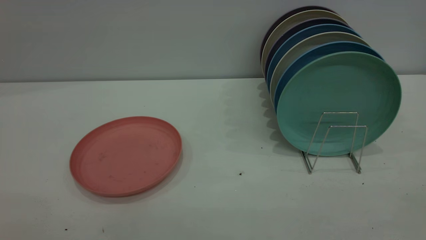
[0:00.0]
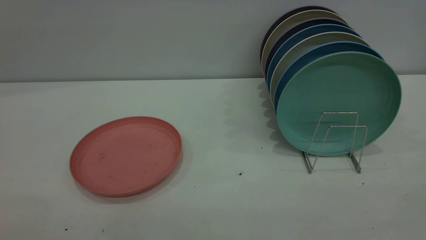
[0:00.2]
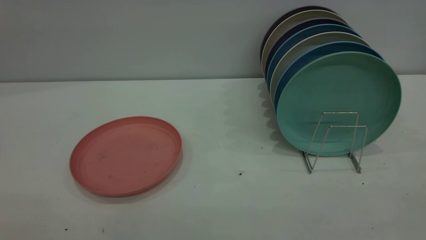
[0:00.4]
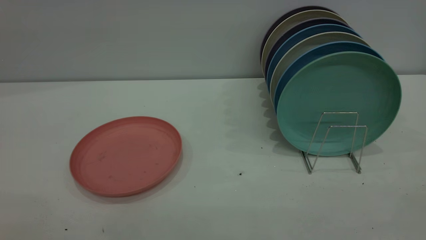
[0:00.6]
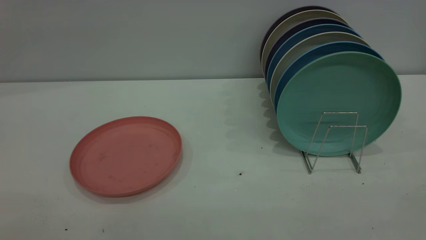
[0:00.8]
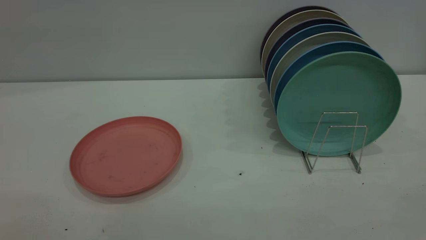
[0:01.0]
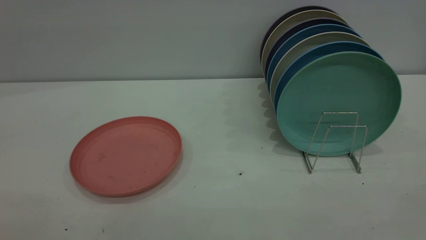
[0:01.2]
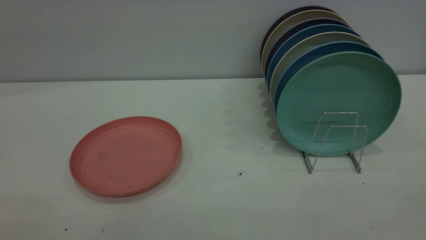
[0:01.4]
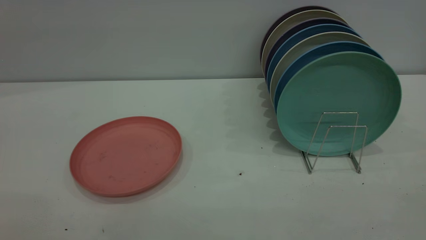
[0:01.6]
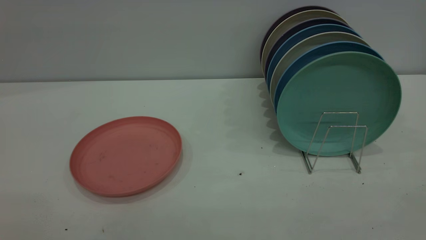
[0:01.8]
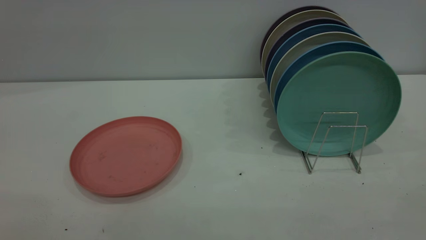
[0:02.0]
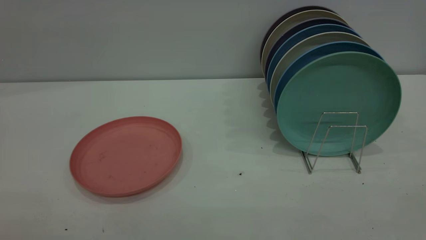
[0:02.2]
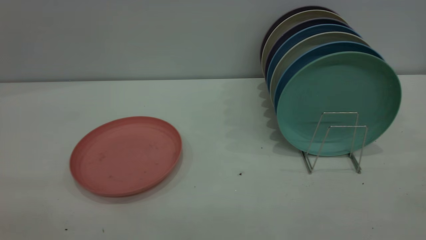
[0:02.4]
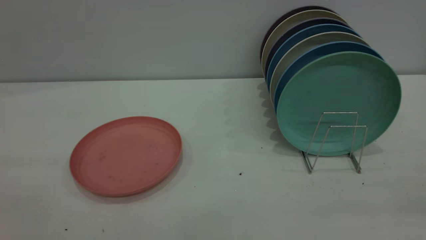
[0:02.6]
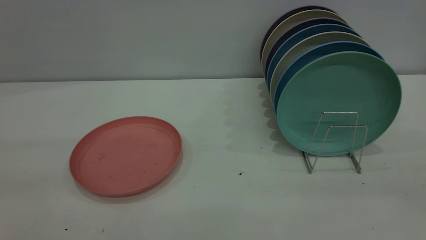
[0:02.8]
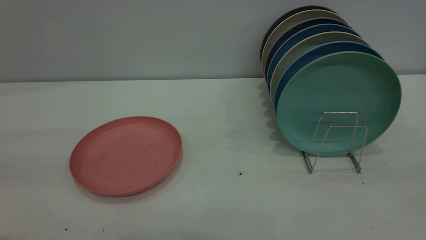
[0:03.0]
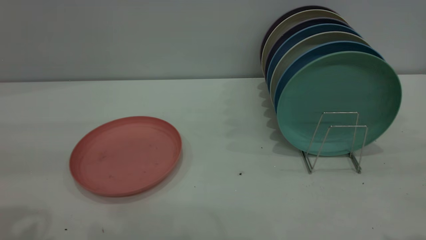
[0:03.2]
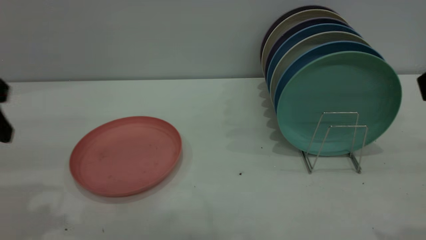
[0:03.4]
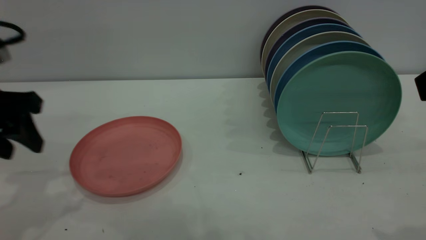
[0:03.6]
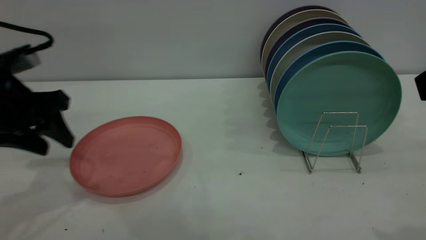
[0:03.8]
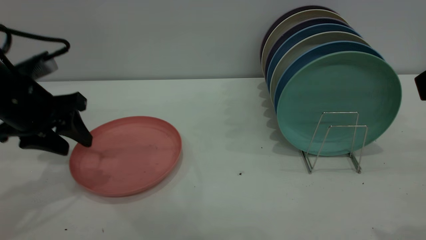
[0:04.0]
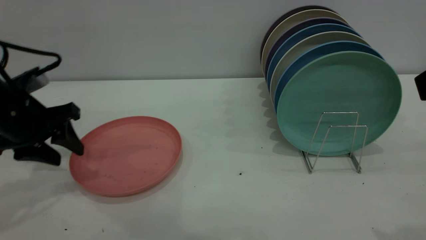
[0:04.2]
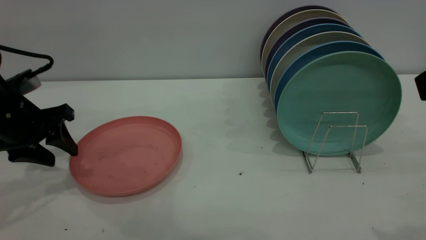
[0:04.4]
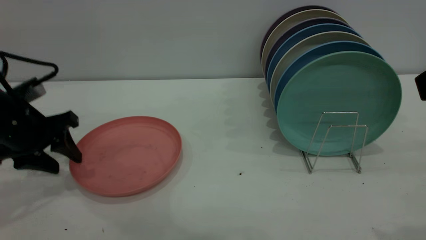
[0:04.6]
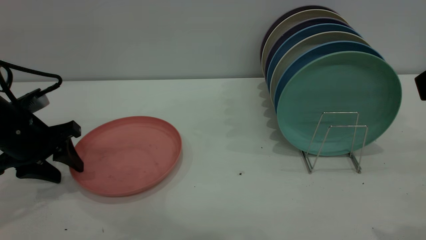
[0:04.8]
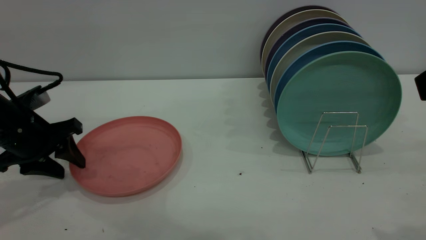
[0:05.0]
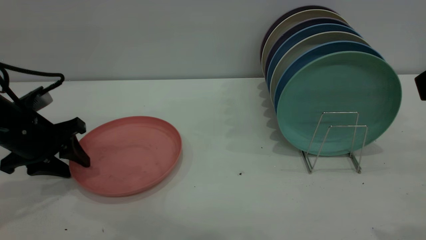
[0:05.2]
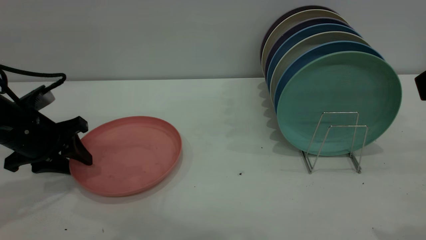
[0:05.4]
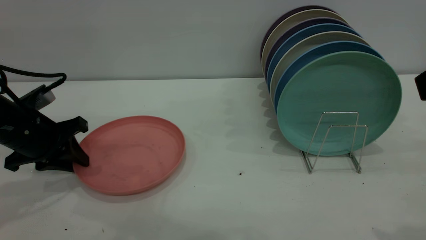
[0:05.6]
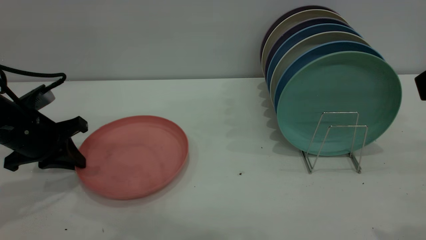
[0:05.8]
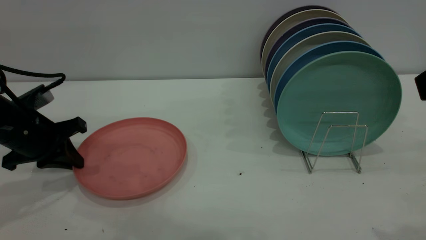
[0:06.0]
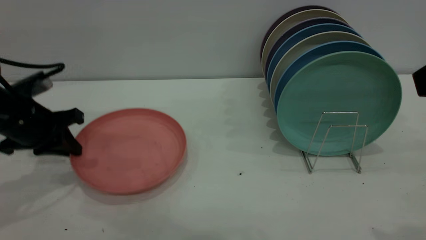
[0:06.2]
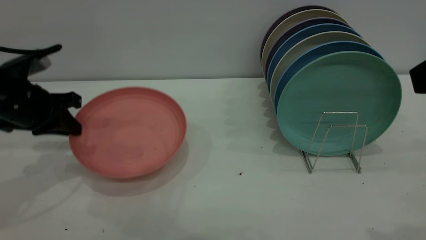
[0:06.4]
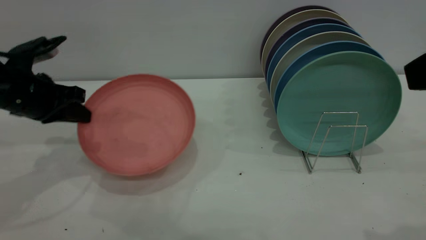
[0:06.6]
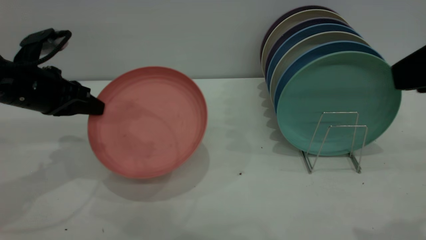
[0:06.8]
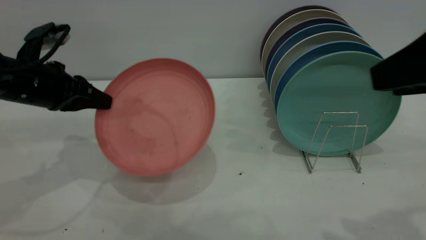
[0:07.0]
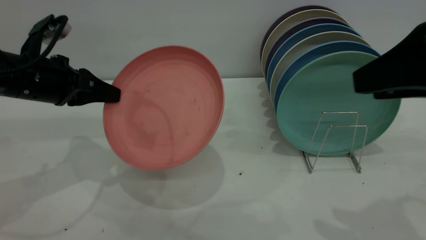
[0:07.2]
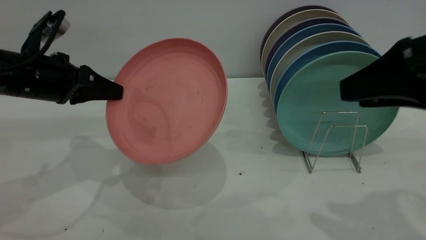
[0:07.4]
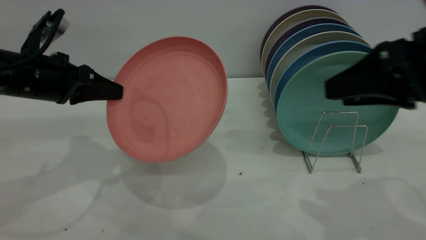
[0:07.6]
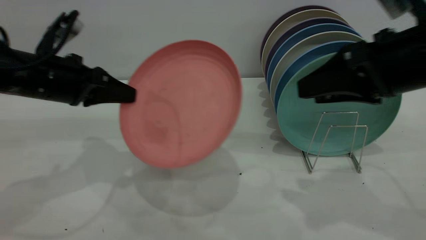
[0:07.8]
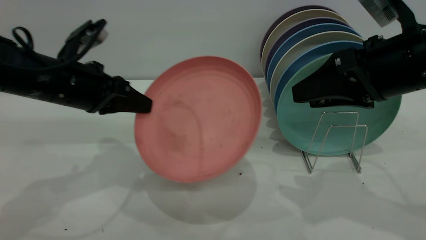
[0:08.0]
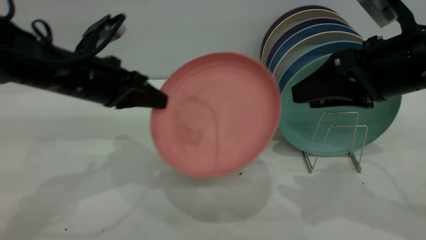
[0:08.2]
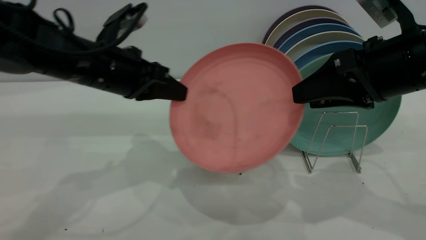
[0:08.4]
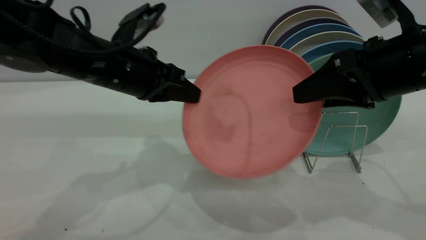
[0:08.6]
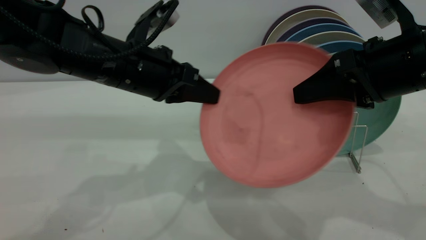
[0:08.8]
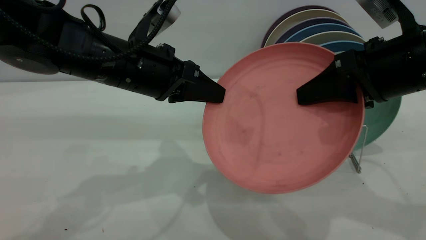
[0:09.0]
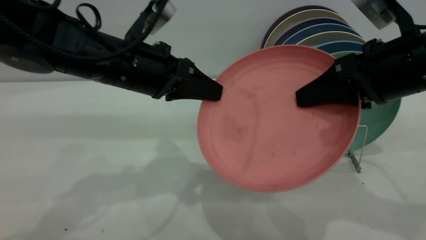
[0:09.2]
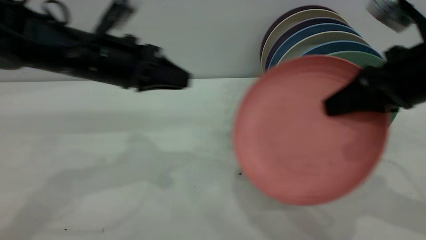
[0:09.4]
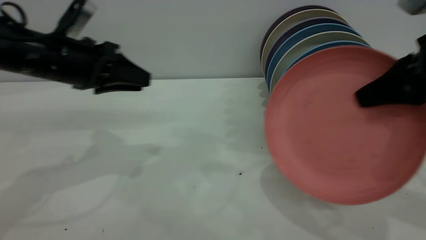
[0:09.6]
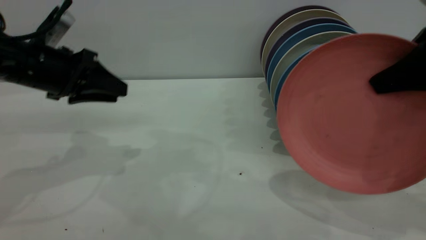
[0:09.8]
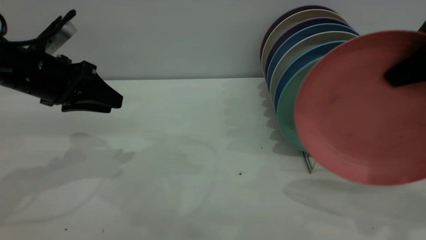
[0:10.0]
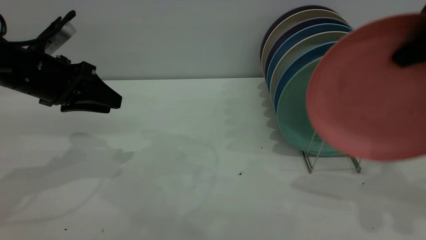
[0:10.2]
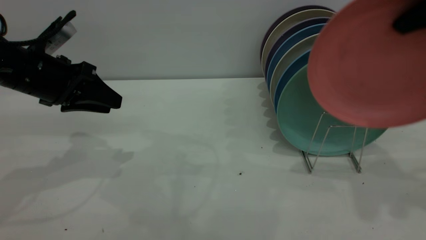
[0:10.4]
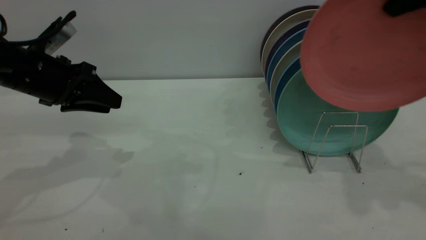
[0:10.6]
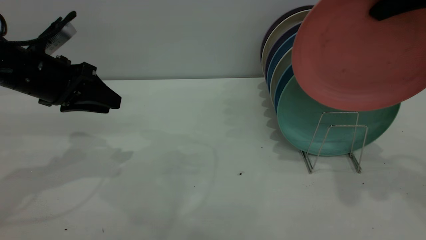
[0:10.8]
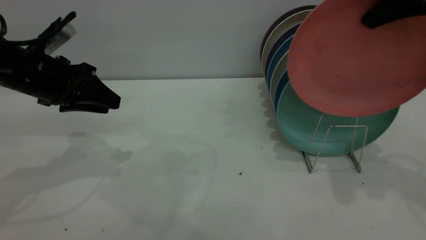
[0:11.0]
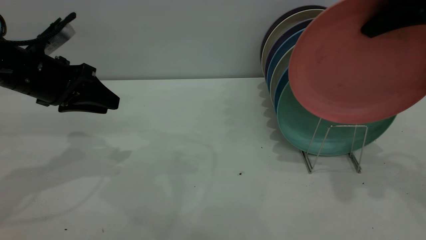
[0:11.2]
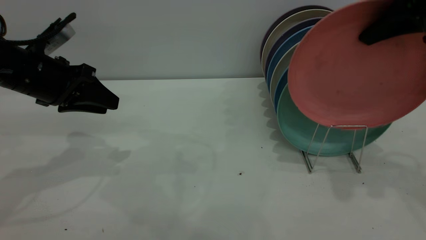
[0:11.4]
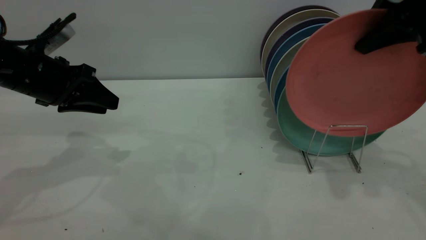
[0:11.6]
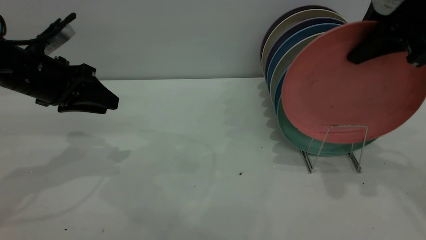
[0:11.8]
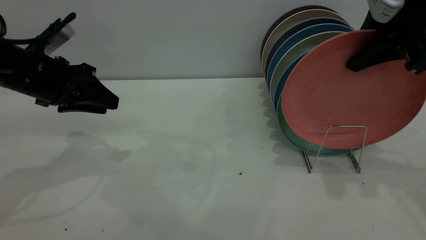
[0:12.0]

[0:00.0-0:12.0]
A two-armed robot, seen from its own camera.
Task of the whole recording: put the plate on the plate rack.
Step, 0:00.0 to 0:06.4: Pick up the plate with the left gripper.
Step, 0:06.8 to 0:09.2: Pass the plate from the left gripper to the right gripper.
0:00.0 to 0:01.6: Both grippers stay about where they are.
0:03.0 to 0:04.4: The left gripper goes roughly 25 cm forward and downward.
0:04.4 to 0:06.0: The left gripper closes up.
0:06.0 to 0:07.6: The right gripper shifts about 10 cm forward and downward. The left gripper is displaced upward by approximately 5 cm.
0:07.6 to 0:09.0: The right gripper closes its fingers; the left gripper is displaced to the right by some 15 cm.
0:09.0 to 0:10.4: The right gripper heads upward and to the right, covering roughly 15 cm. The left gripper shifts some 15 cm to the left, and opens.
0:10.4 to 0:12.0: The right gripper is displaced downward by approximately 5 cm.

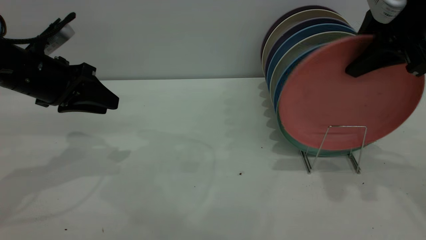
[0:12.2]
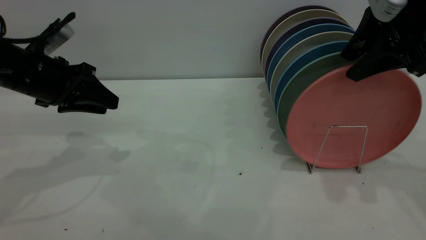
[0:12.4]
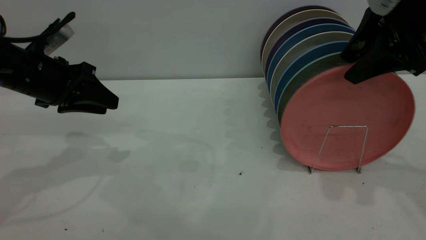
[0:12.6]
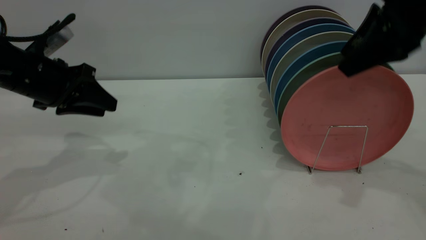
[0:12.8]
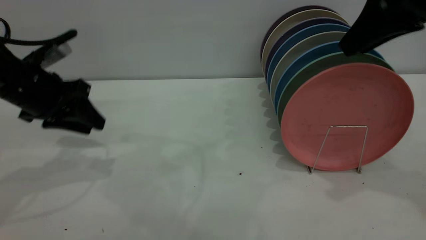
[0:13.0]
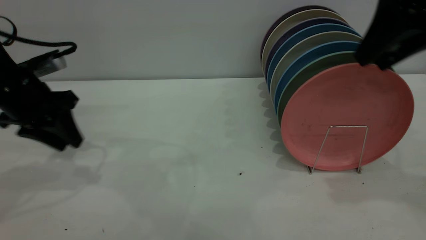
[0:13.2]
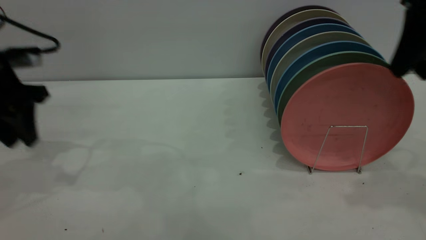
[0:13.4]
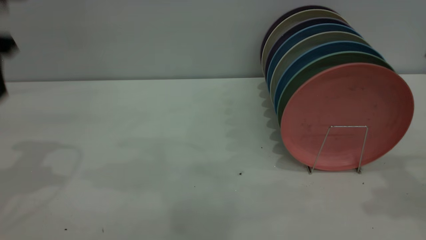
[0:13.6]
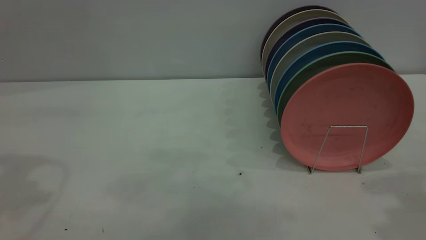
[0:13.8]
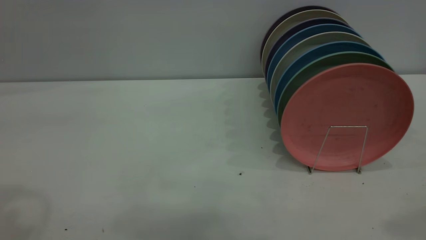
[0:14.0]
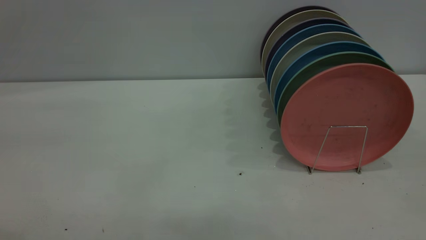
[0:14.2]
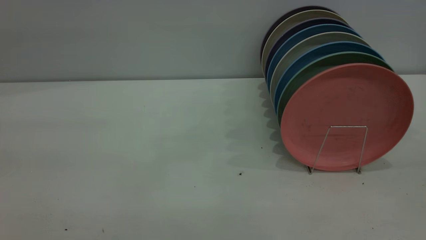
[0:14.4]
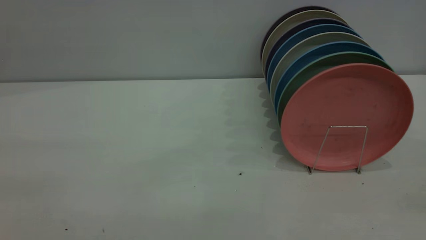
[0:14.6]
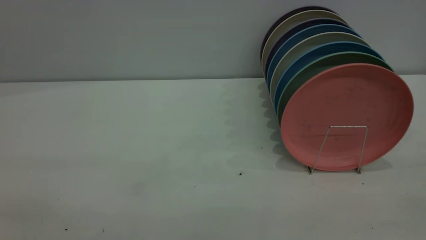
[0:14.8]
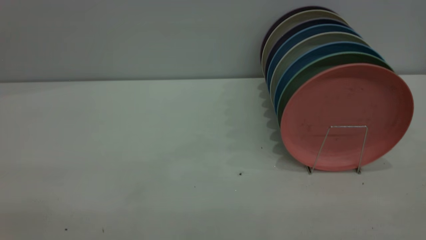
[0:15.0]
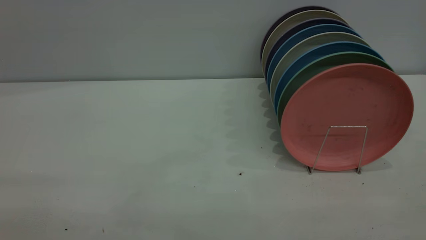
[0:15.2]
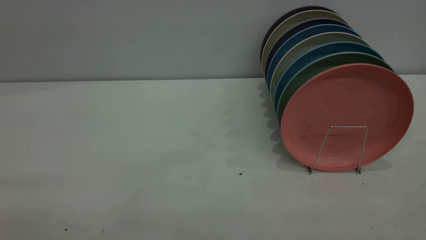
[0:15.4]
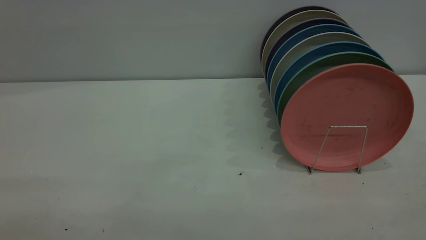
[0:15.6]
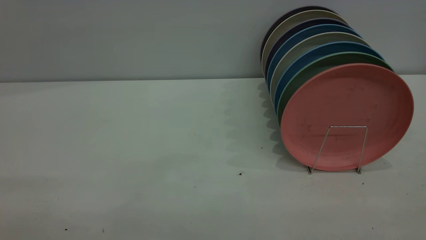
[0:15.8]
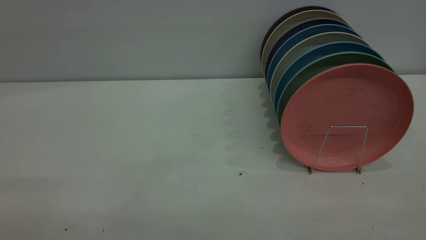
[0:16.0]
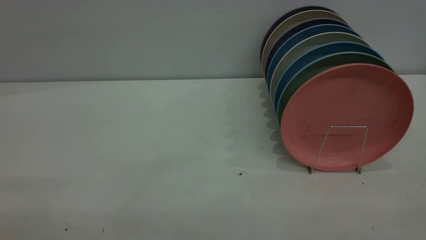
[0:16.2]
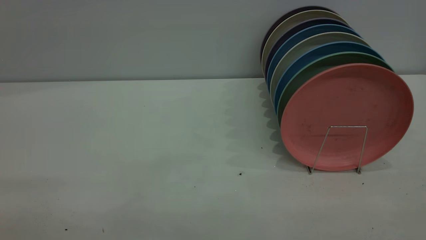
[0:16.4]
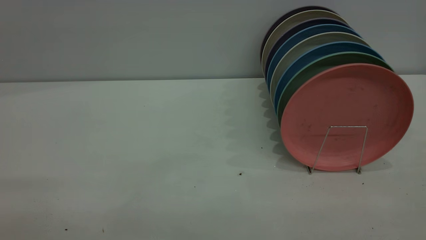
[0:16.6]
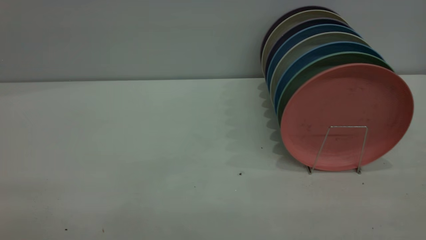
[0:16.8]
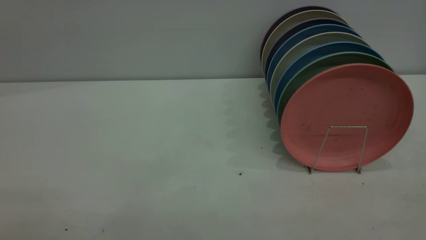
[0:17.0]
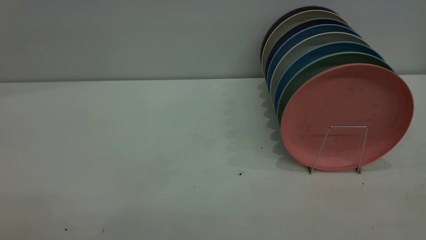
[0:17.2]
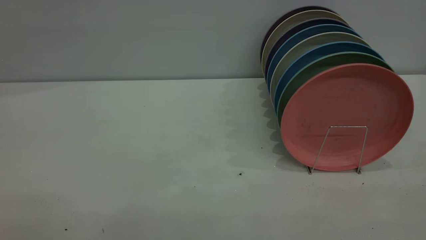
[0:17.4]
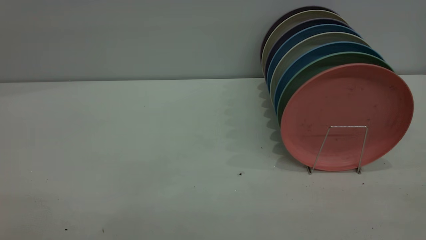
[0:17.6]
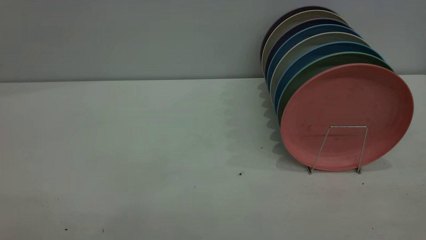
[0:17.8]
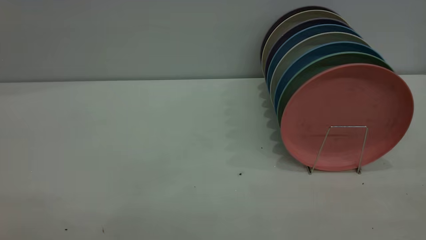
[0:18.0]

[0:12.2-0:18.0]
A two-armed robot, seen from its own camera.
Task of the whole recording: put the plate on the plate rack.
0:12.2 to 0:13.6: The left gripper heads upward, covering approximately 15 cm, while the right gripper shifts roughly 10 cm upward and backward, and opens.
